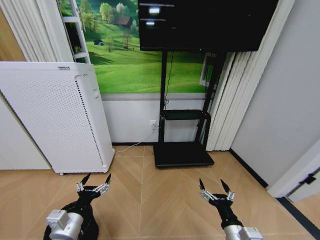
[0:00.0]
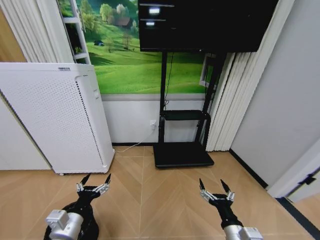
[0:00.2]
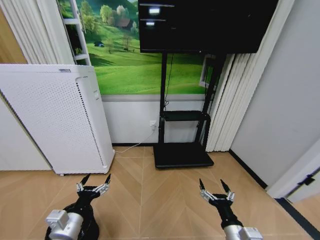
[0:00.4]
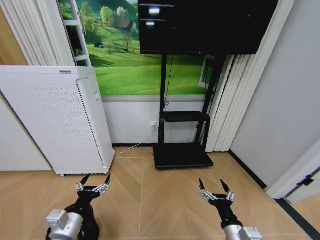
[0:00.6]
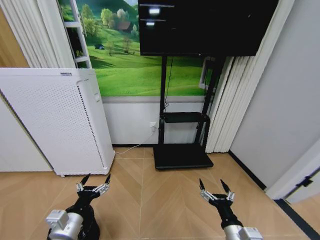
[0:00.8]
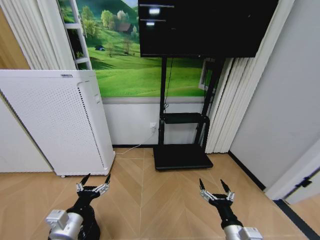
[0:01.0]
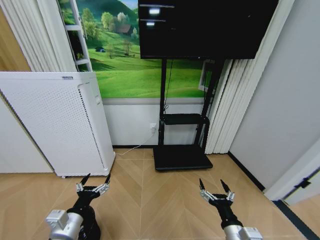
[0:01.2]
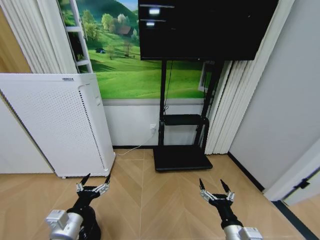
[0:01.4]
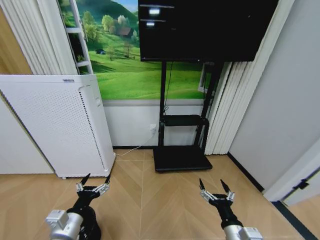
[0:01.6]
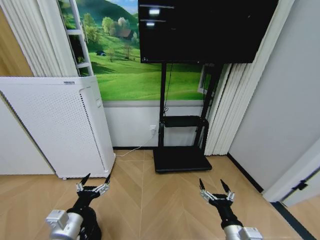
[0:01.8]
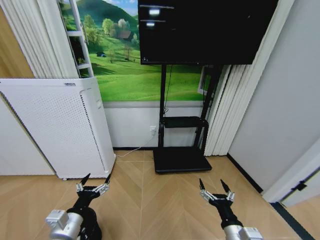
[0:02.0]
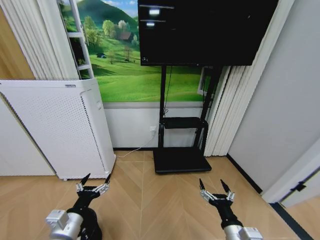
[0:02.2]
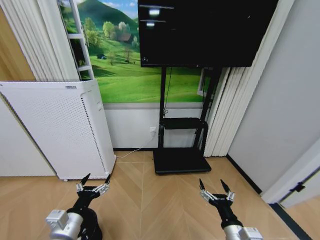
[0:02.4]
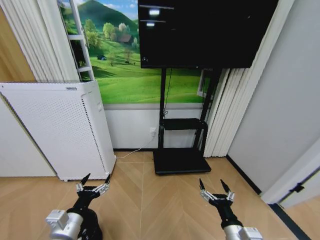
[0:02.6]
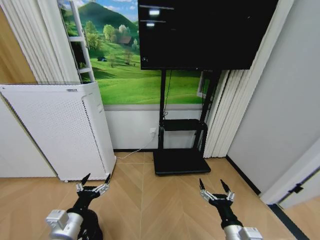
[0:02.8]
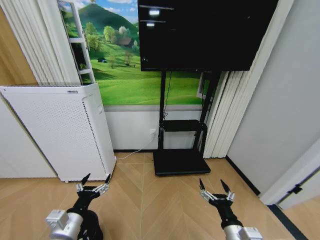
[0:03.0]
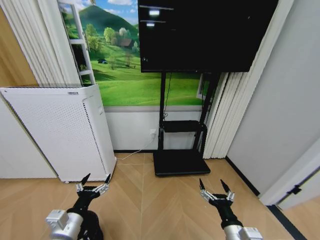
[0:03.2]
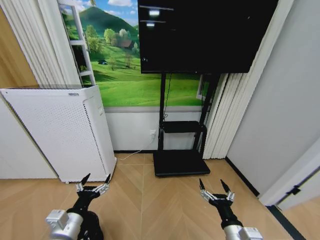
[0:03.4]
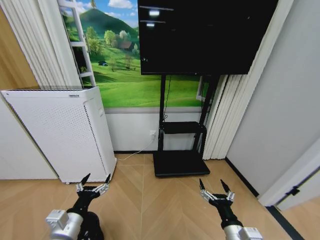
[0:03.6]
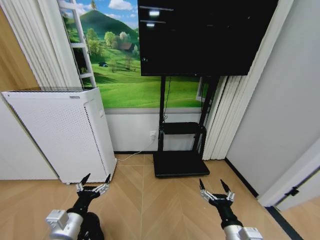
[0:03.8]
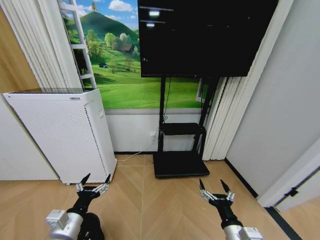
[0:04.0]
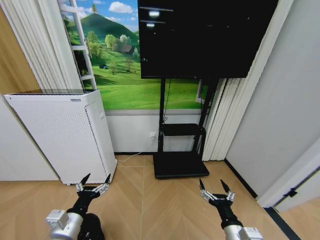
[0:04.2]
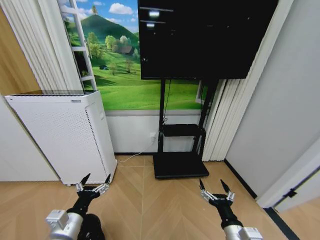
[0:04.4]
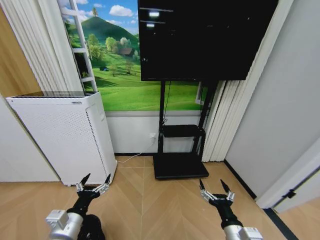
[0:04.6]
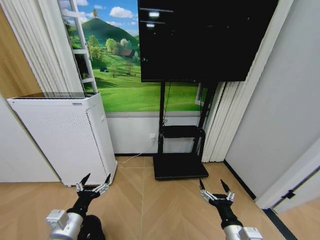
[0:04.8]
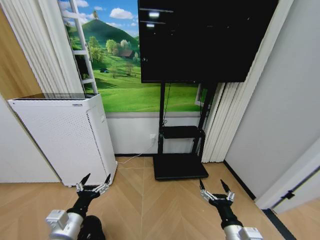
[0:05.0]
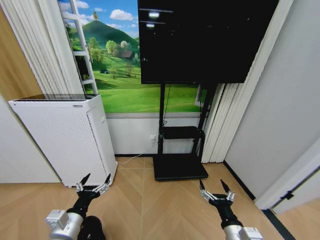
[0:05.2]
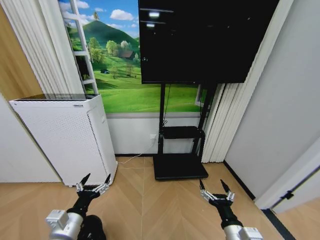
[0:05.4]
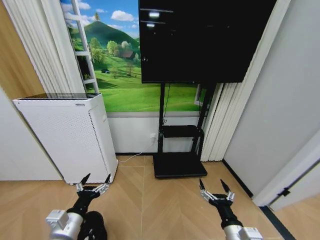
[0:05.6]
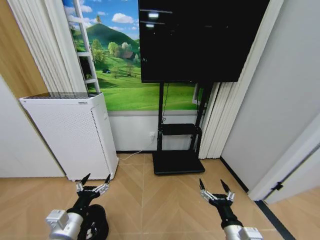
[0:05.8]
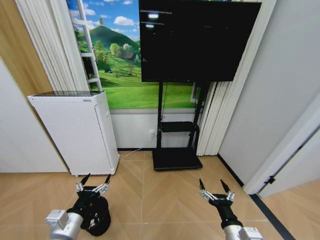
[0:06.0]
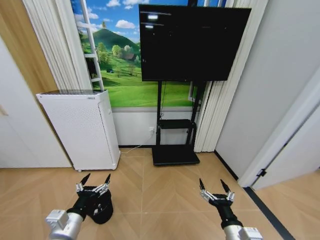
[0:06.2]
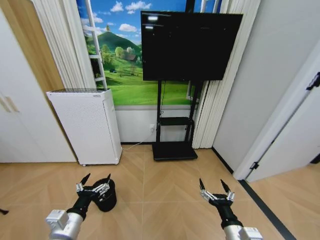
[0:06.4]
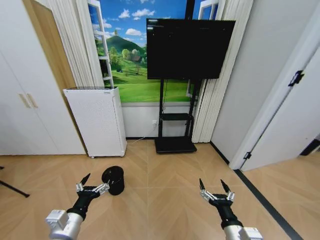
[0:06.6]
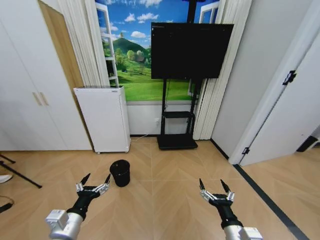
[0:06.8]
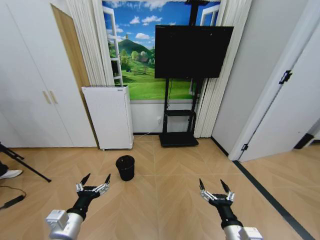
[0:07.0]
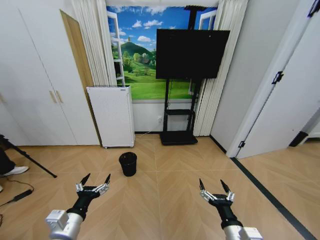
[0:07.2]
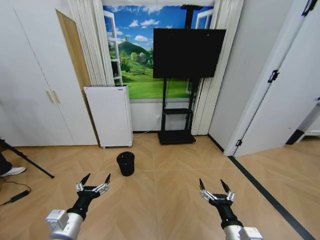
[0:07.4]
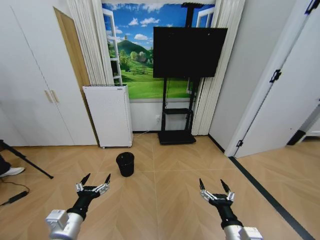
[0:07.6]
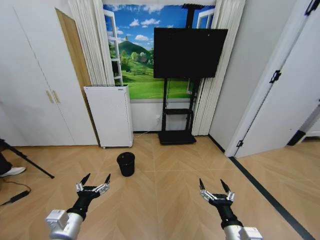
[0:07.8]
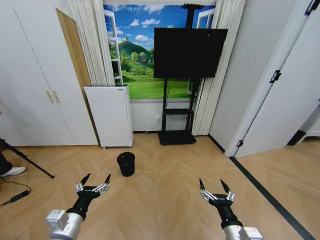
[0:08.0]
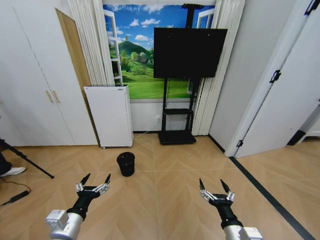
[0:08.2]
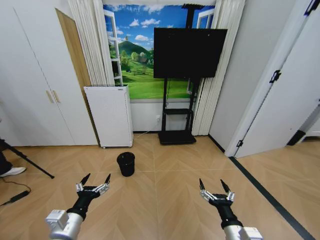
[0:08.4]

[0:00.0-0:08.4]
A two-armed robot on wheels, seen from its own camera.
Task of the whole recording: Pick up the trash bin and place the garbage on the floor into it.
0:00.0 to 0:05.6: Neither gripper changes place.
0:07.0 to 0:08.4: Both grippers stay put.
